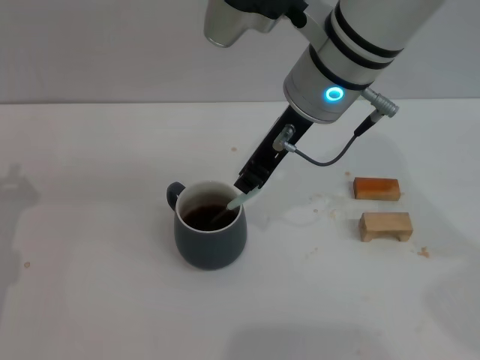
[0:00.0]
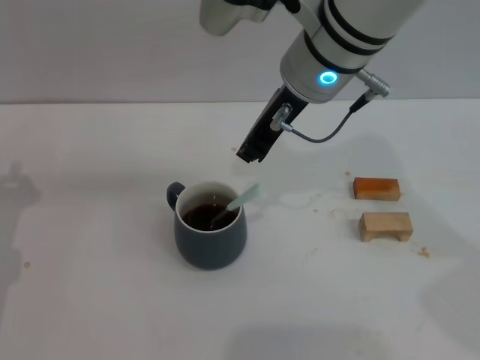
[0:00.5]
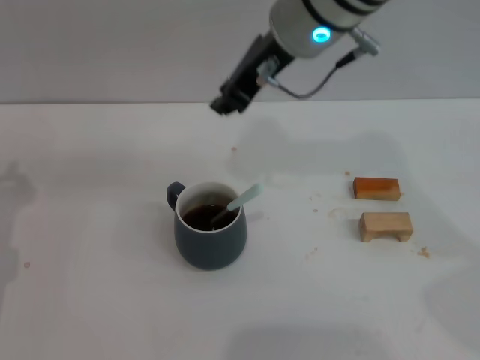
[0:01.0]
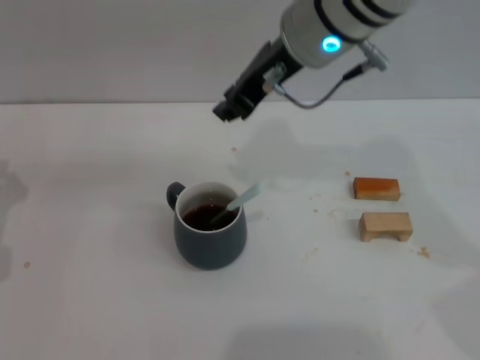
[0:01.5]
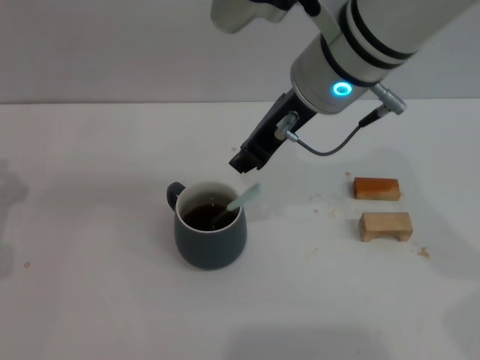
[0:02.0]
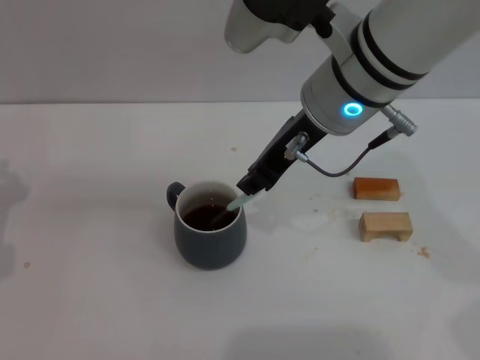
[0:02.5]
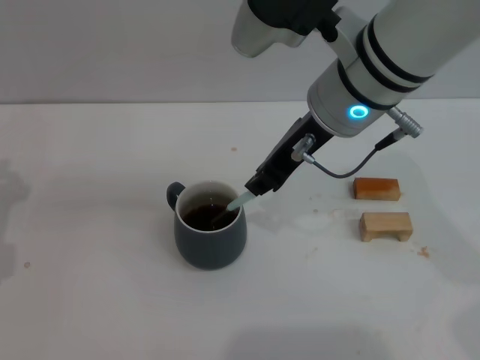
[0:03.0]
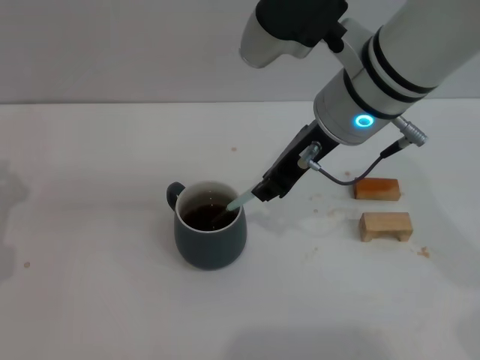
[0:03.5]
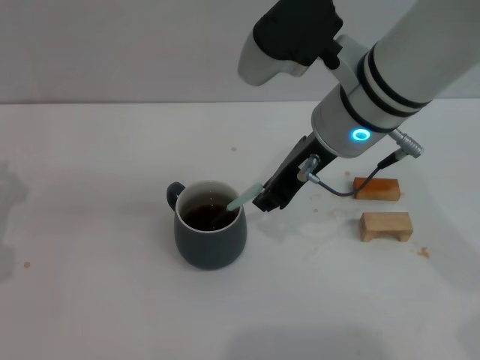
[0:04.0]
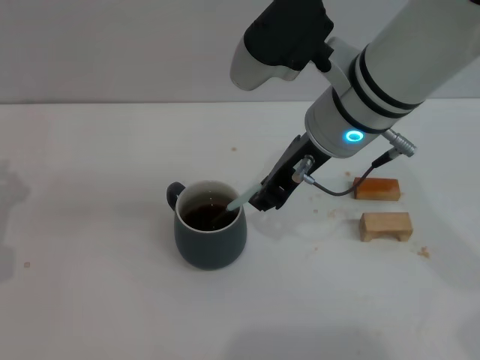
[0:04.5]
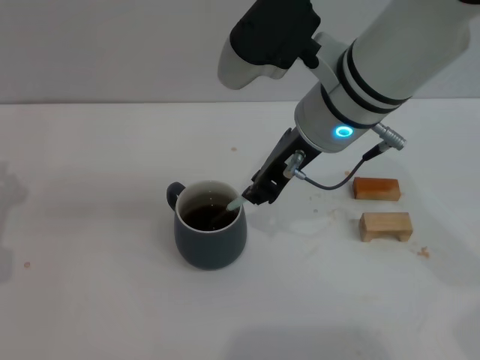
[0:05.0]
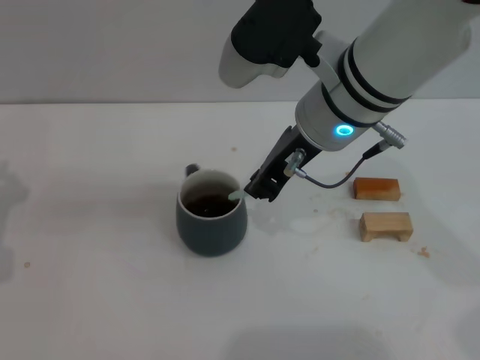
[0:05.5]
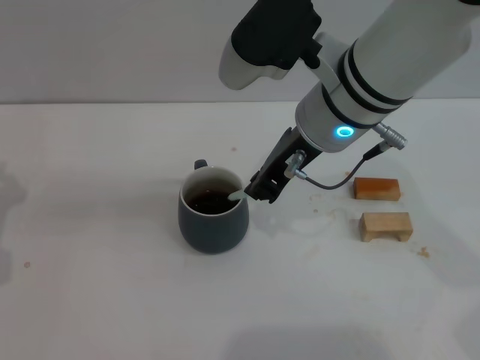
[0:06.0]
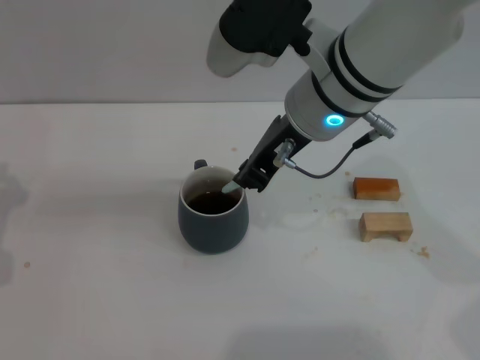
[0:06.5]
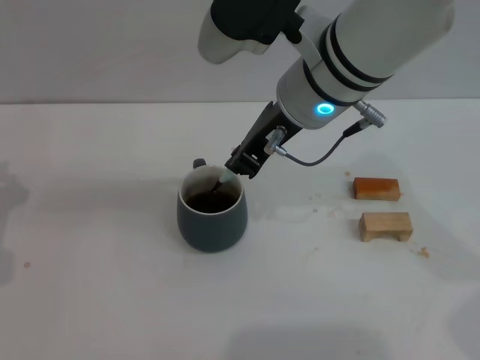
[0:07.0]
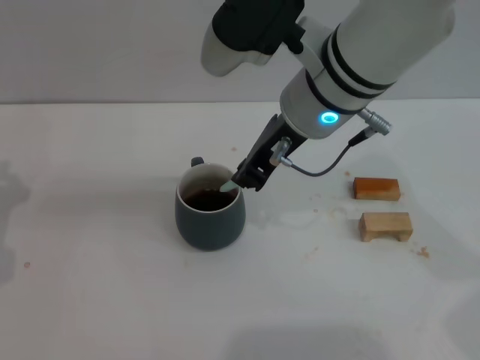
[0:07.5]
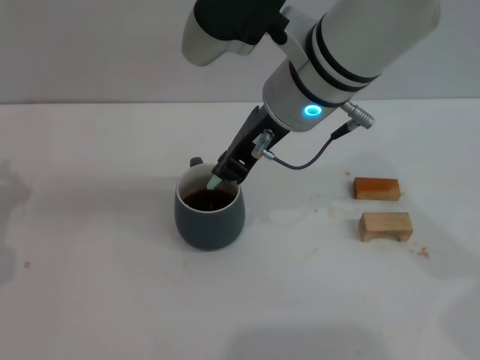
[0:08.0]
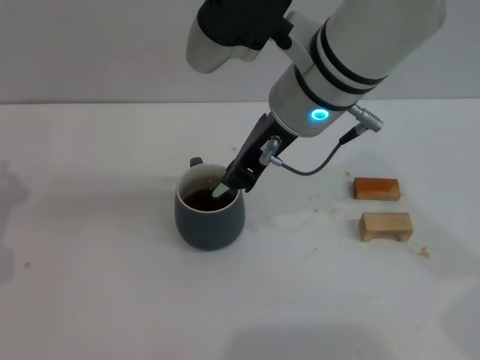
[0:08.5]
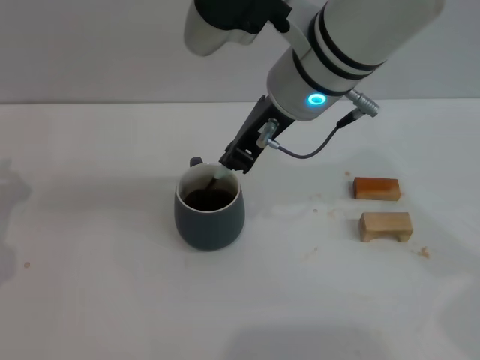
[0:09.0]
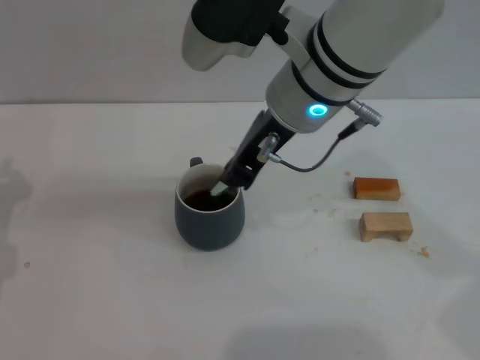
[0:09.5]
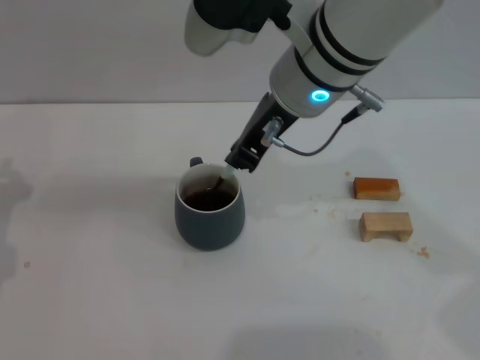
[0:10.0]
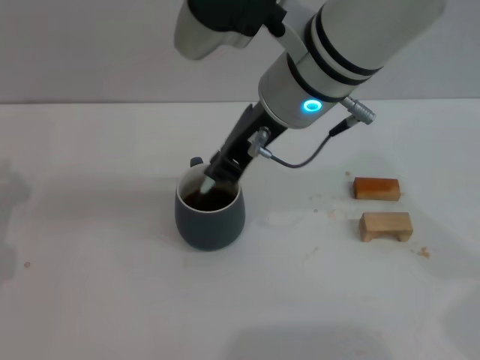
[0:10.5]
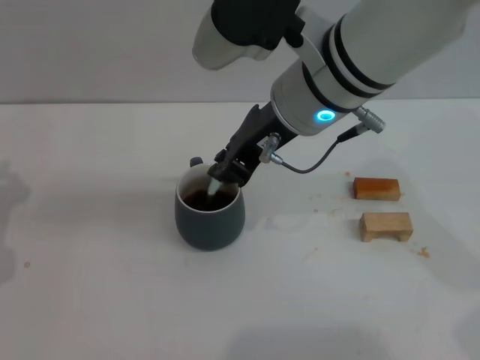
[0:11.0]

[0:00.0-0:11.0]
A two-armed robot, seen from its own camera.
Task of the whole recording: Move the grey cup to the center, lift the blue spoon, stir it three times in the cup, and put the spoon into the cup.
0:02.0 to 0:11.0: The grippers make only small movements.

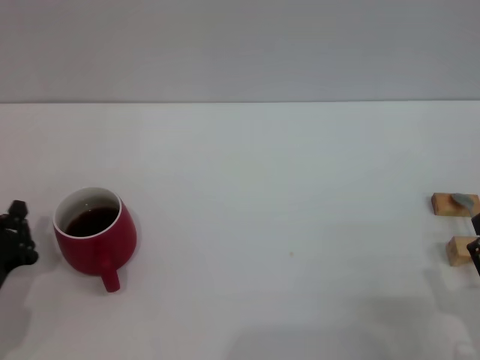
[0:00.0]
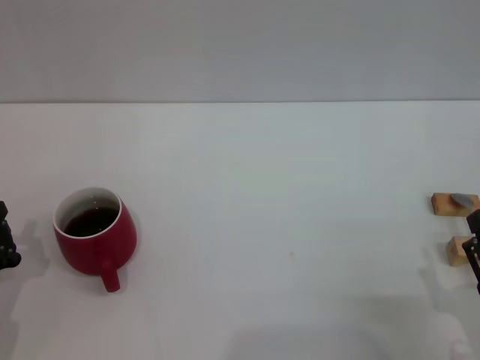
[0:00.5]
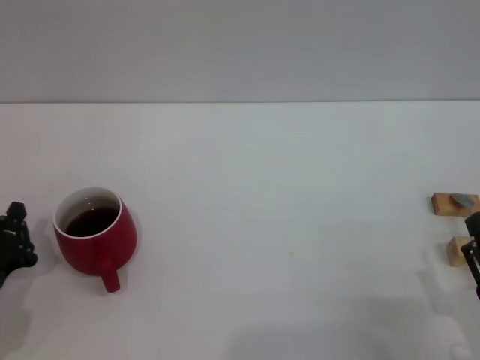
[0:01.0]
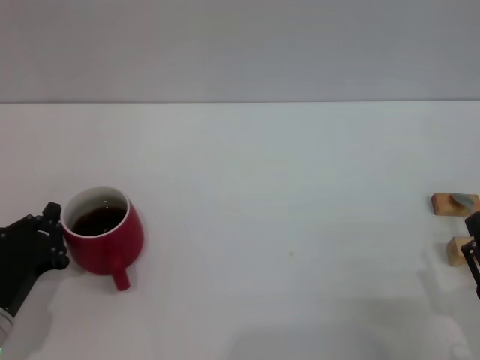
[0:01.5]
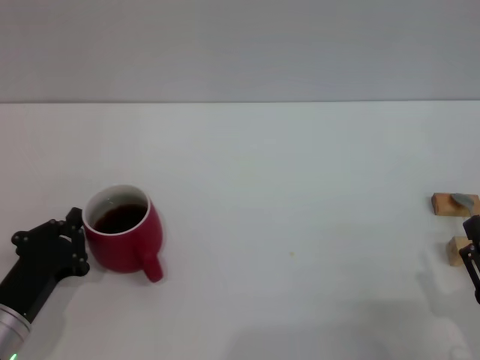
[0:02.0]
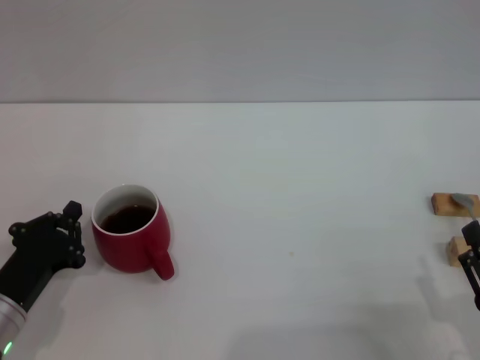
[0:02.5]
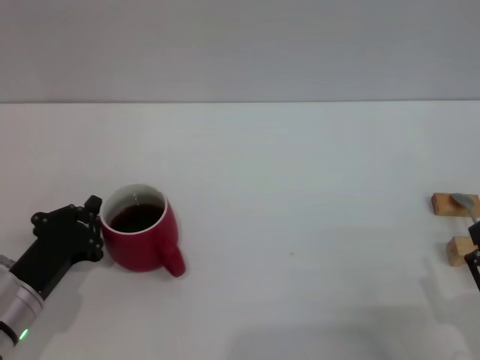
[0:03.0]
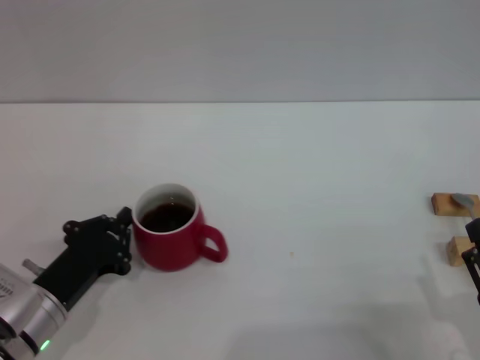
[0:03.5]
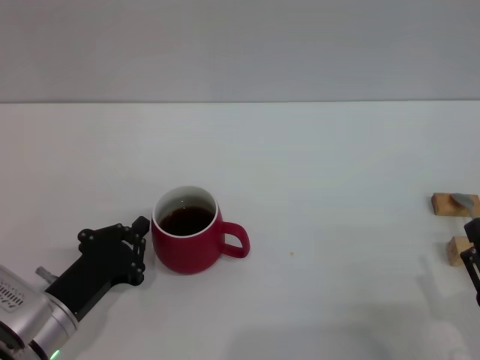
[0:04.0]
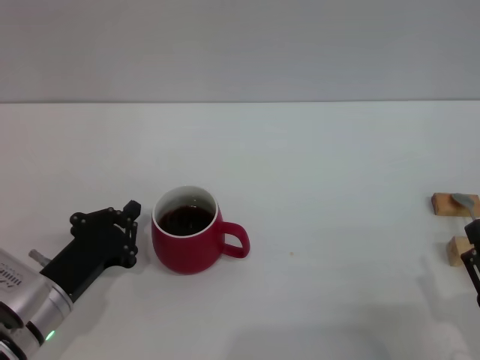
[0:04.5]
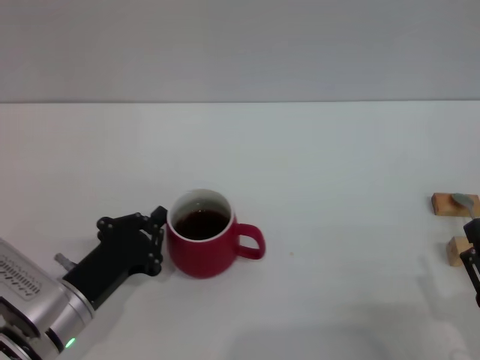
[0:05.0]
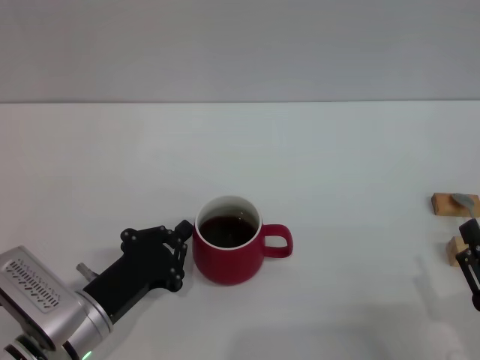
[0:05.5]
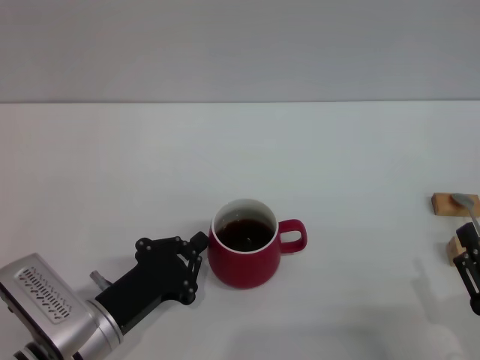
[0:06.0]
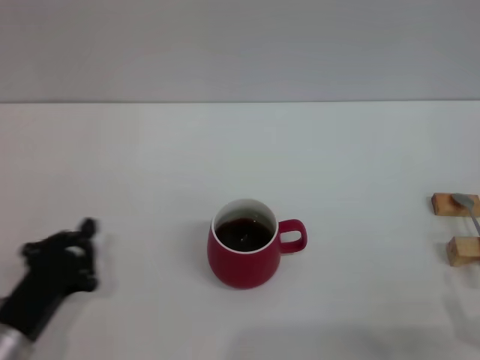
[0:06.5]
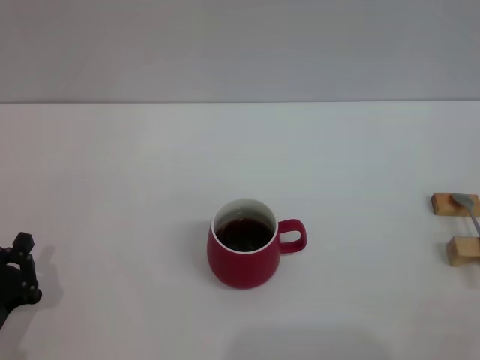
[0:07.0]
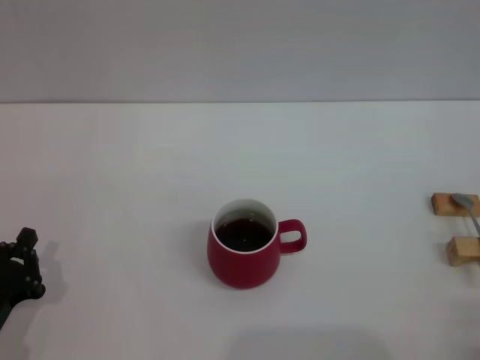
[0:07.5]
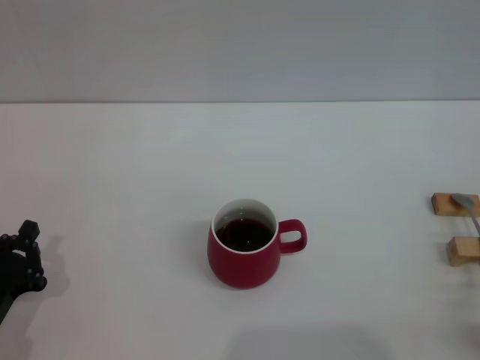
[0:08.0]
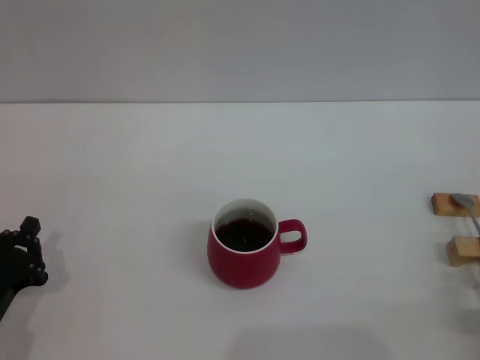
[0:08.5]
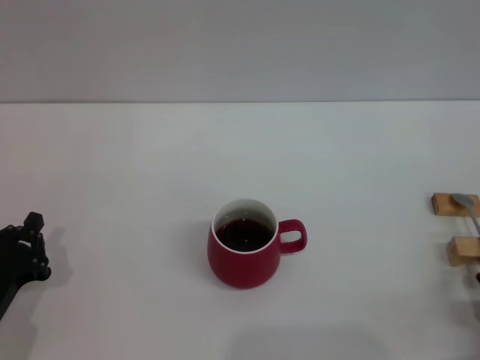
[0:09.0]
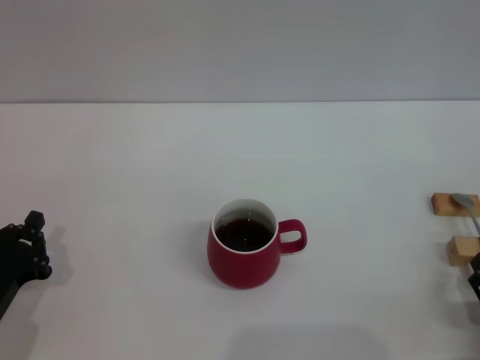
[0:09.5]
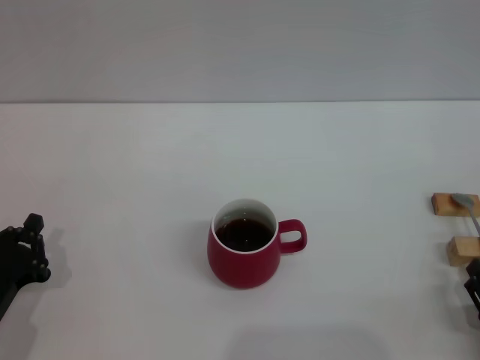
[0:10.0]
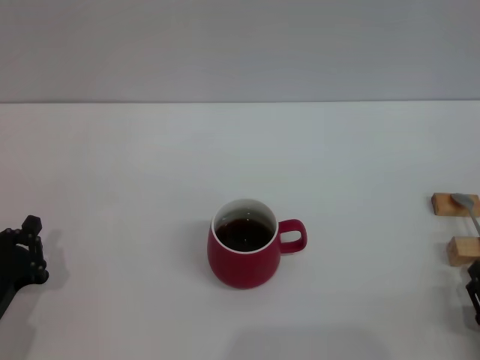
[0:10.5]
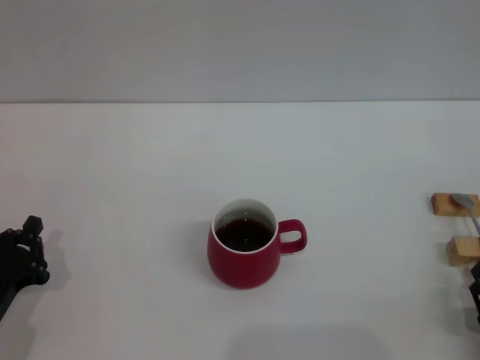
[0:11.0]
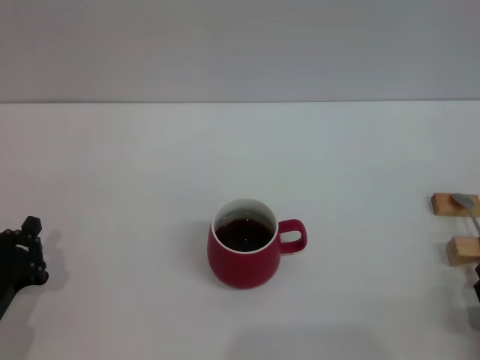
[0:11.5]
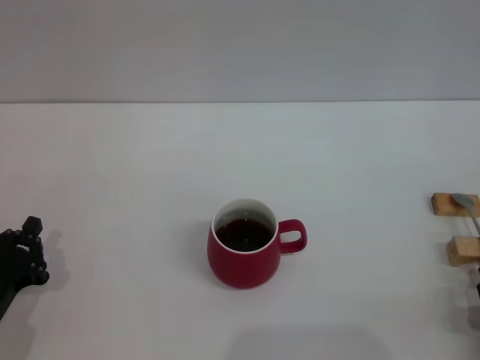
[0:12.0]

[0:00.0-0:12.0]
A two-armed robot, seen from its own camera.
Task of the whole recording: Move the red cup to the center, lift the pink spoon, stir it three times in the cup, and put the spoon into the cup.
Step, 0:00.0 to 0:08.0: Move the cup with coffee to the center of view with the left gripper.
0:00.0 to 0:02.0: The grippers make only small movements.
0:02.0 to 0:04.0: The grippers stay close to where they were, moving slightly.
0:04.0 to 0:06.0: The grippers make only small movements.
0:06.0 to 0:08.0: The right gripper moves to the right, approximately 5 cm. Meanwhile the left gripper travels to the left by about 10 cm.
0:08.0 to 0:10.0: The grippers make only small movements.

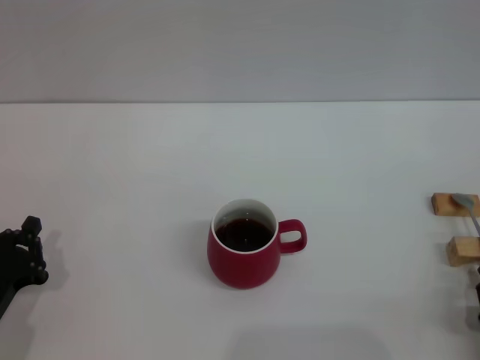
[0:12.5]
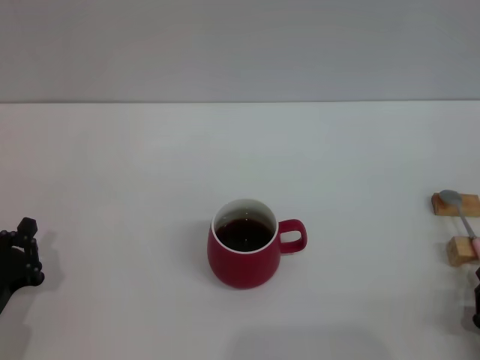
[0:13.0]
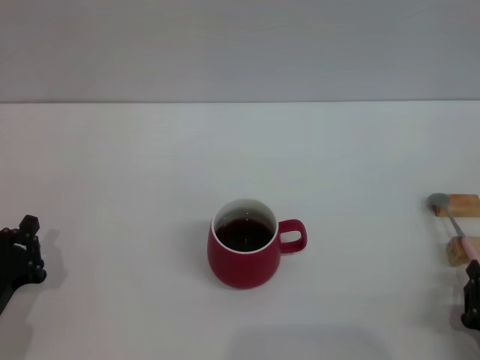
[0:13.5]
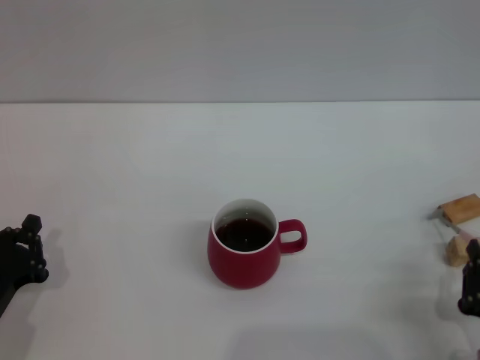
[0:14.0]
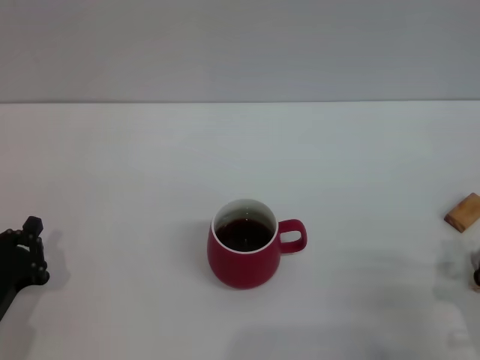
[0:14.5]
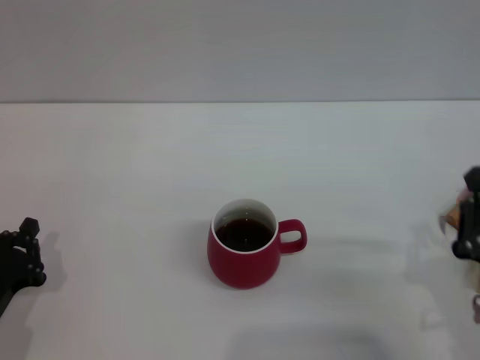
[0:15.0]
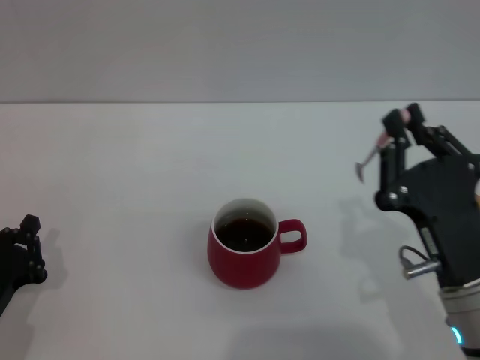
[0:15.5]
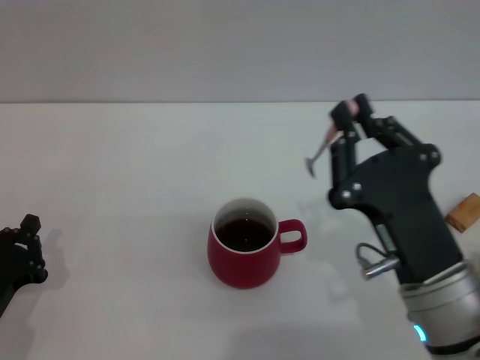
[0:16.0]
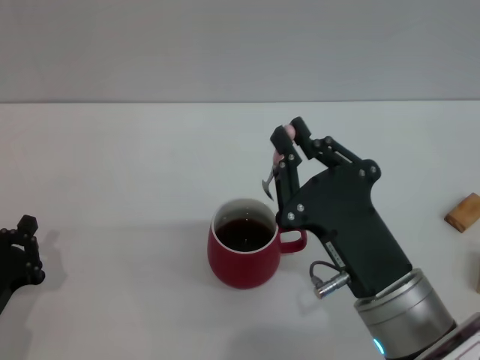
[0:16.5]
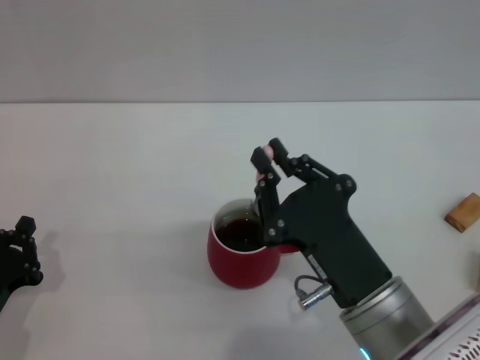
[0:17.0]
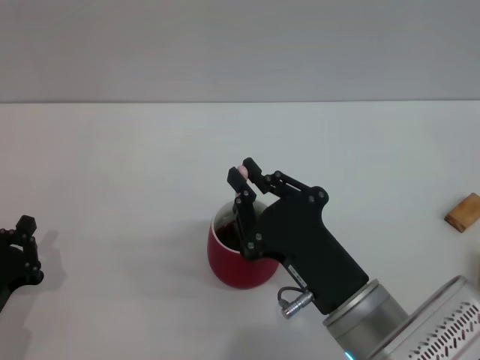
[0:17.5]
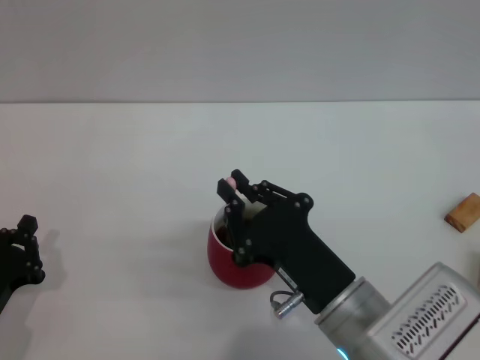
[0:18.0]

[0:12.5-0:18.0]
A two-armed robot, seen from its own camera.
Task of the whole recording: Move the red cup to the center, lift the pink spoon, stir it three times in the cup, and put the spoon into the cup.
Step, 0:12.5 to 0:15.5: Pick up the spoon with the right gripper.
0:12.5 to 0:14.5: The right gripper is displaced upward by about 5 cm, and closes its fingers.
0:14.5 to 0:16.0: The right gripper shifts roughly 15 cm to the left, upward and forward.
0:16.0 to 0:18.0: The right gripper changes place by approximately 5 cm.
